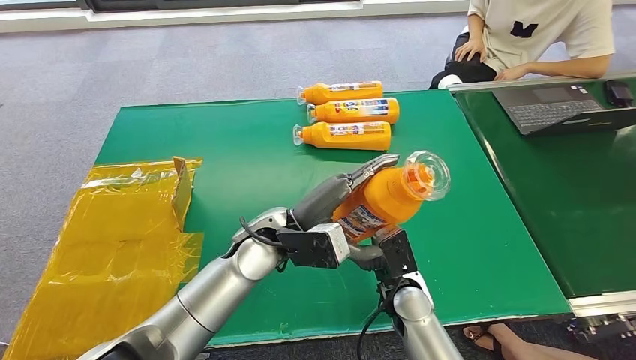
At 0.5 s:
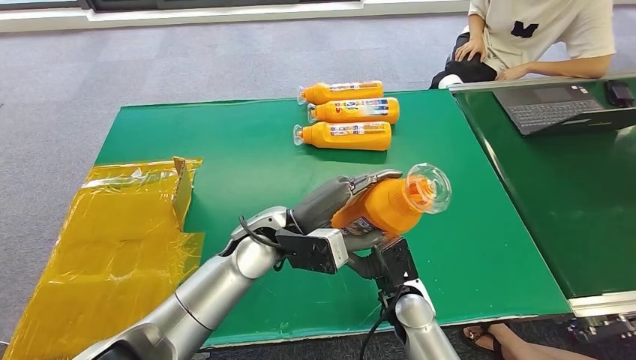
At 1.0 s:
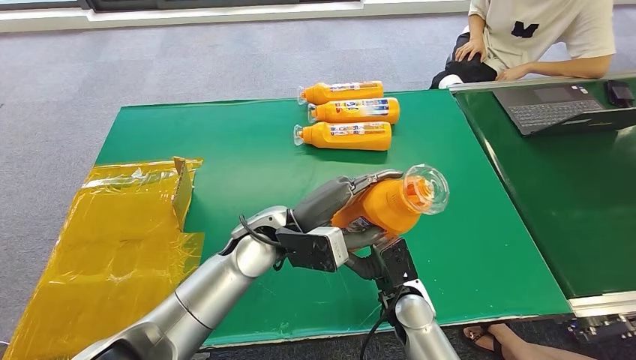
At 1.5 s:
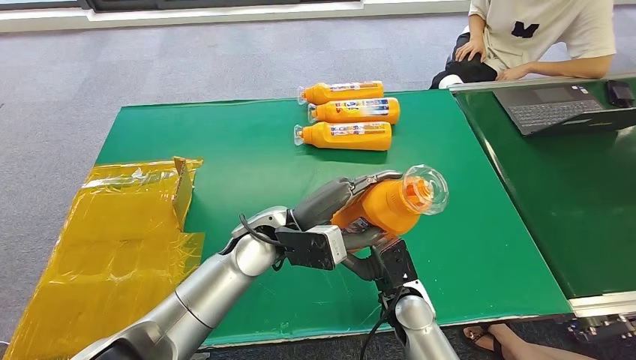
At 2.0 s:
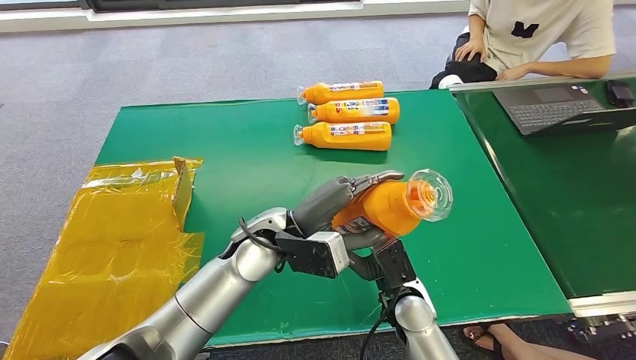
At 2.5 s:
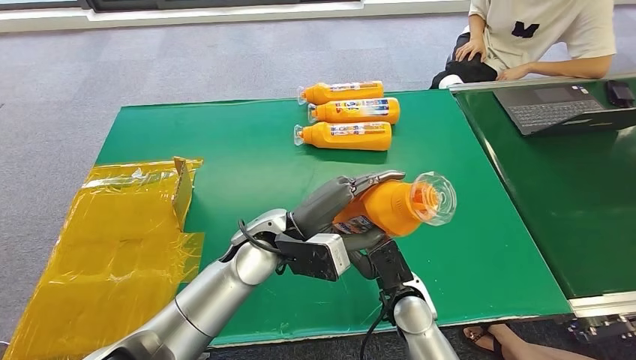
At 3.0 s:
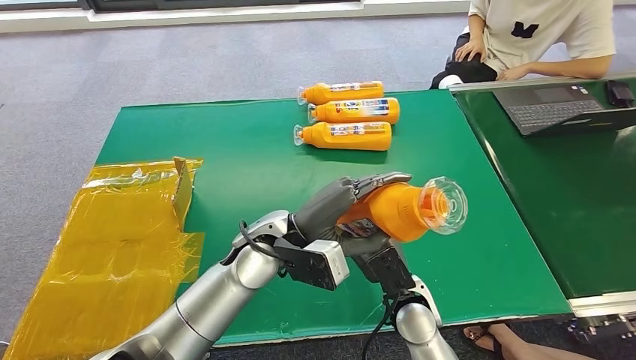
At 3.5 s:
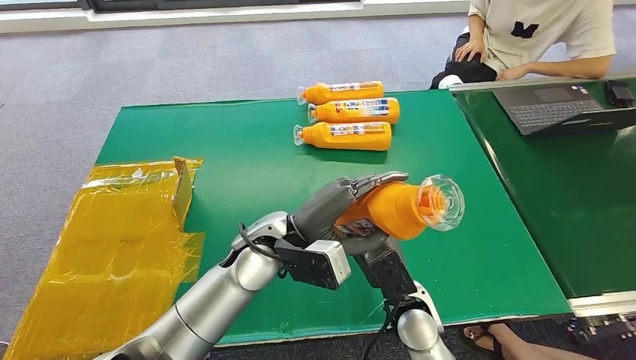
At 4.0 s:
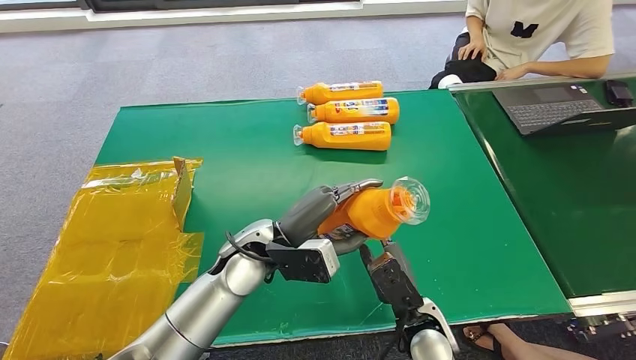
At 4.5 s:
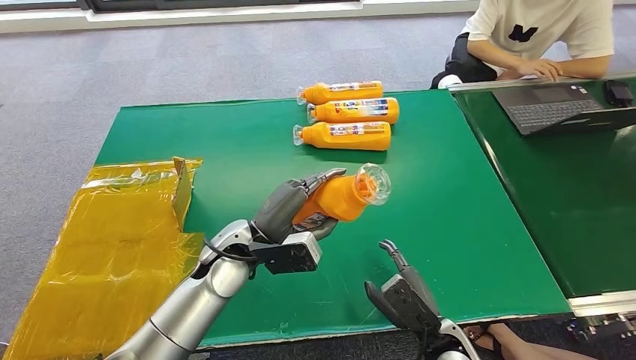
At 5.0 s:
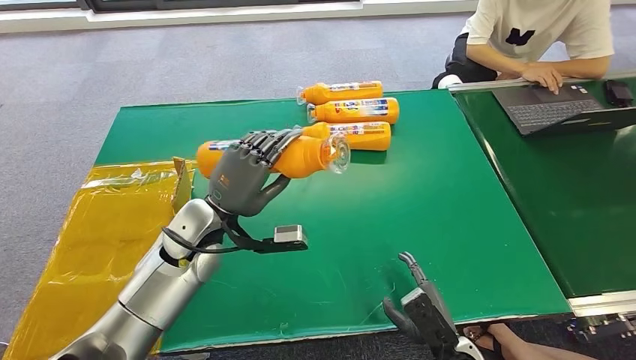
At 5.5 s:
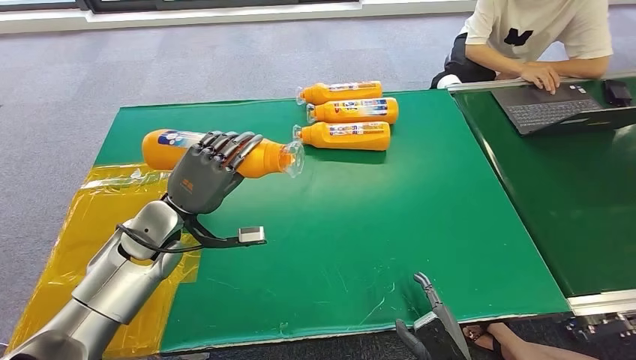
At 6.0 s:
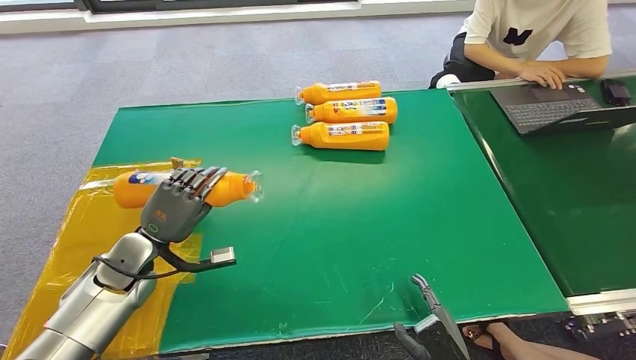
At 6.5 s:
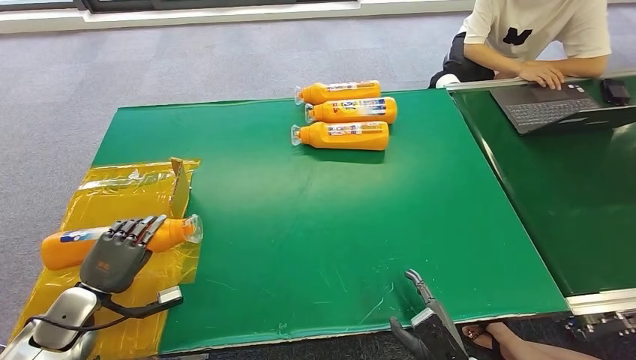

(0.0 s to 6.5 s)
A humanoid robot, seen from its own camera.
Step, 0.0 s - 6.5 s: Turn the bottle to the front side.
0.0 s - 2.0 s: The hands stay close to where they were, moving slightly.
2.0 s - 4.5 s: The left hand goes about 5 cm to the left; the right hand moves backward and to the right, some 10 cm.
4.5 s - 6.5 s: The left hand heads to the left, covering roughly 30 cm, while the right hand moves backward, roughly 5 cm.
